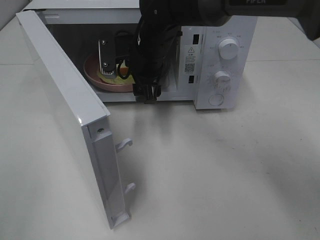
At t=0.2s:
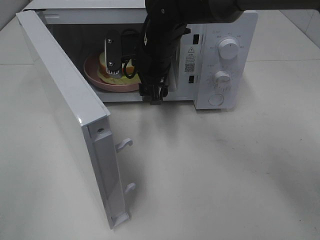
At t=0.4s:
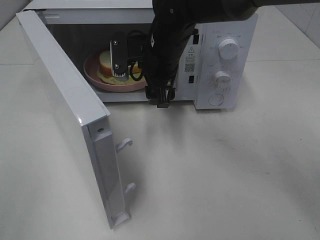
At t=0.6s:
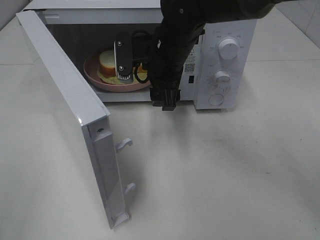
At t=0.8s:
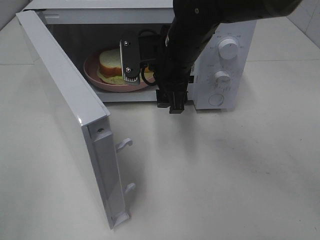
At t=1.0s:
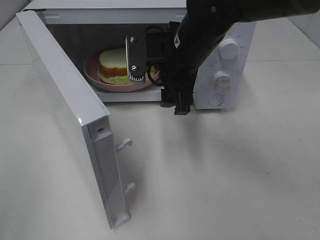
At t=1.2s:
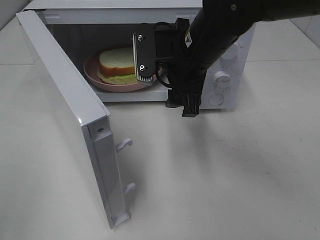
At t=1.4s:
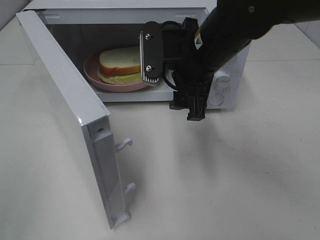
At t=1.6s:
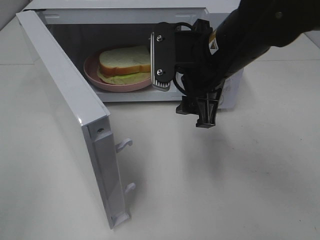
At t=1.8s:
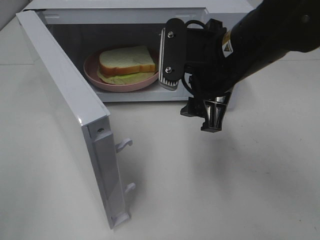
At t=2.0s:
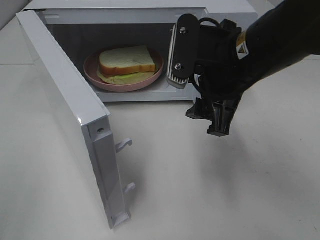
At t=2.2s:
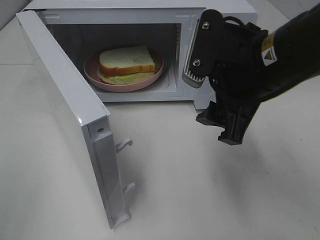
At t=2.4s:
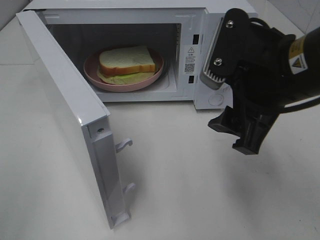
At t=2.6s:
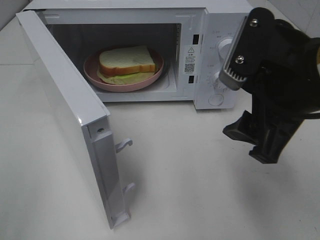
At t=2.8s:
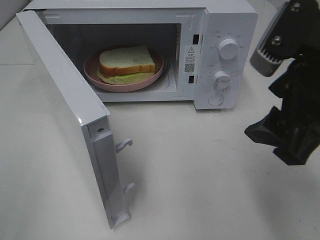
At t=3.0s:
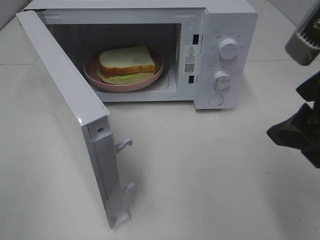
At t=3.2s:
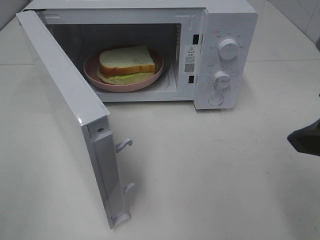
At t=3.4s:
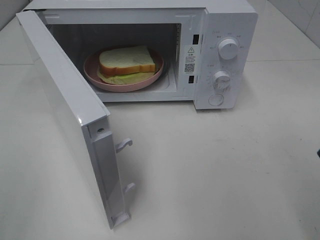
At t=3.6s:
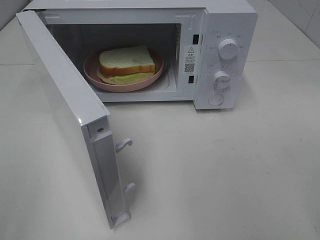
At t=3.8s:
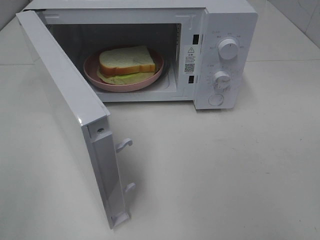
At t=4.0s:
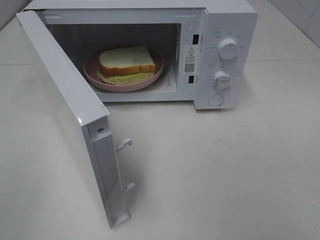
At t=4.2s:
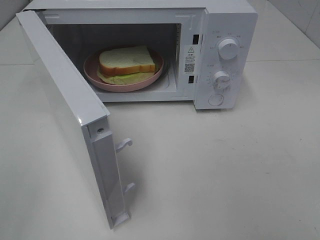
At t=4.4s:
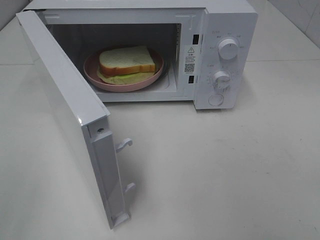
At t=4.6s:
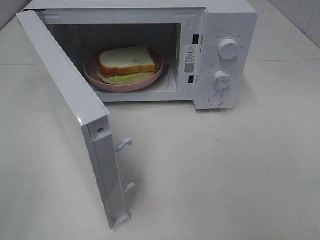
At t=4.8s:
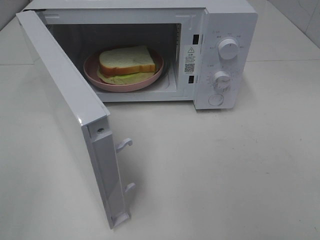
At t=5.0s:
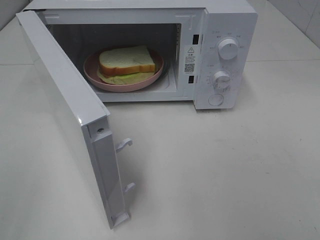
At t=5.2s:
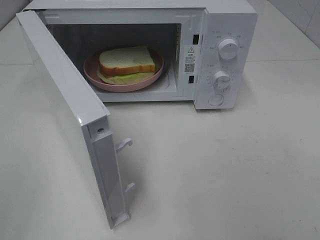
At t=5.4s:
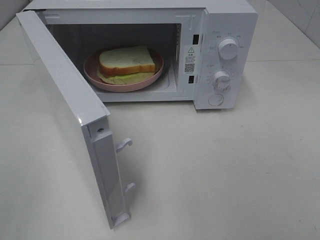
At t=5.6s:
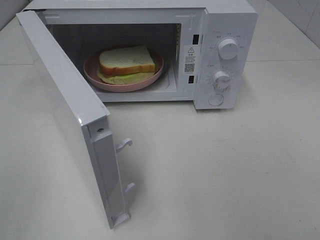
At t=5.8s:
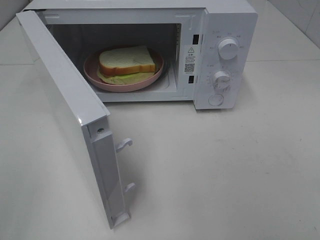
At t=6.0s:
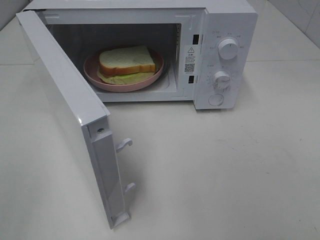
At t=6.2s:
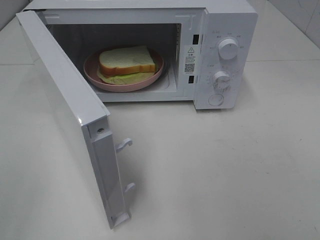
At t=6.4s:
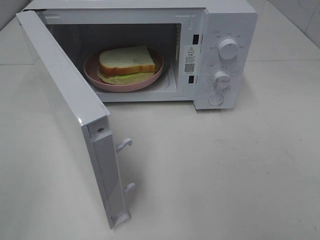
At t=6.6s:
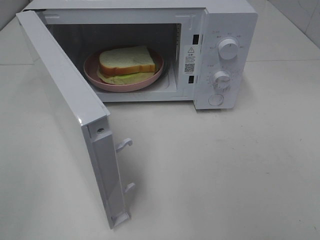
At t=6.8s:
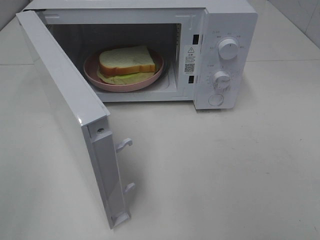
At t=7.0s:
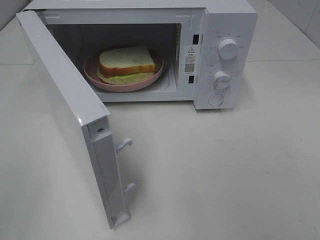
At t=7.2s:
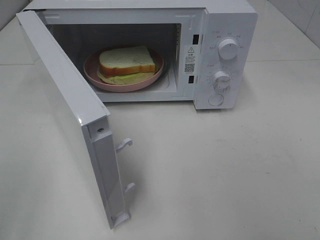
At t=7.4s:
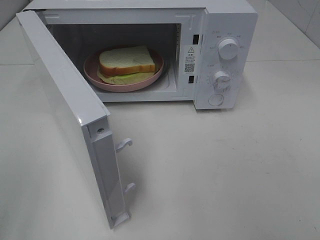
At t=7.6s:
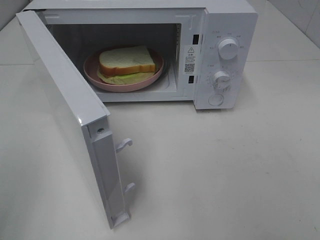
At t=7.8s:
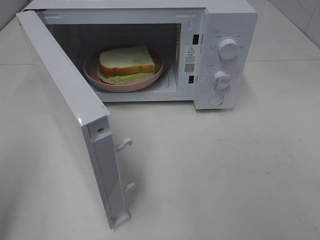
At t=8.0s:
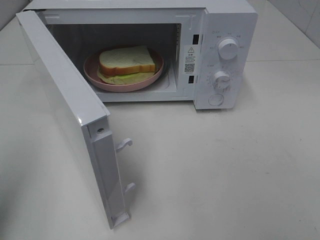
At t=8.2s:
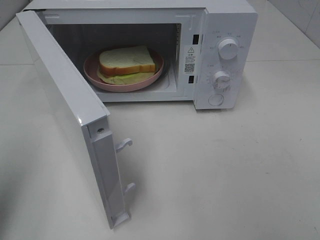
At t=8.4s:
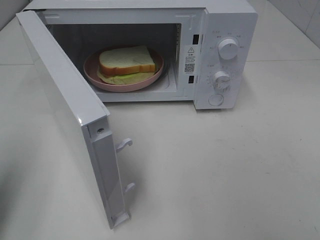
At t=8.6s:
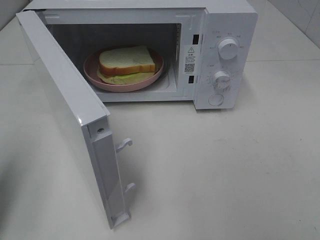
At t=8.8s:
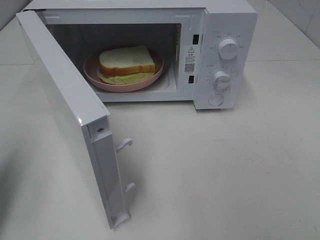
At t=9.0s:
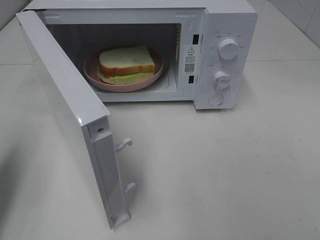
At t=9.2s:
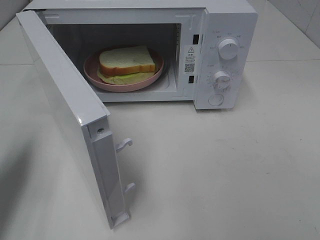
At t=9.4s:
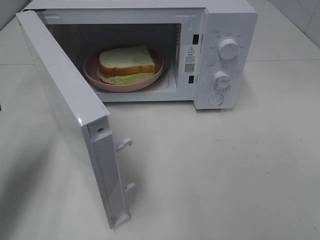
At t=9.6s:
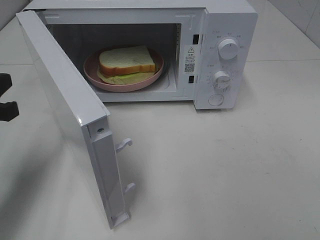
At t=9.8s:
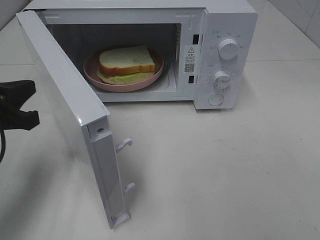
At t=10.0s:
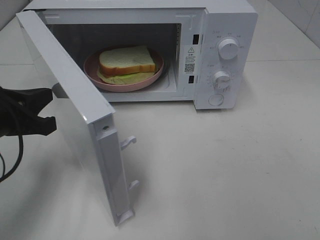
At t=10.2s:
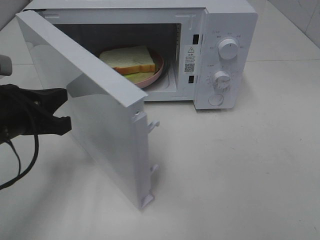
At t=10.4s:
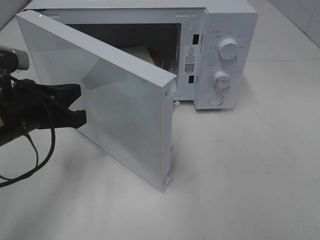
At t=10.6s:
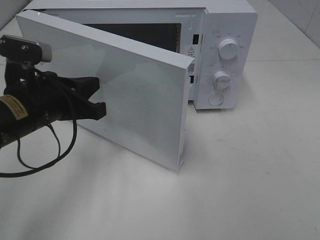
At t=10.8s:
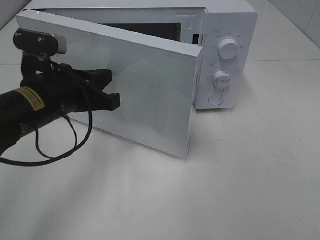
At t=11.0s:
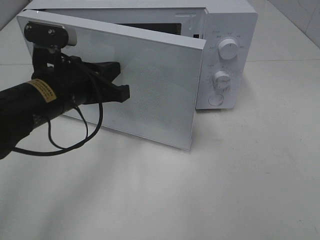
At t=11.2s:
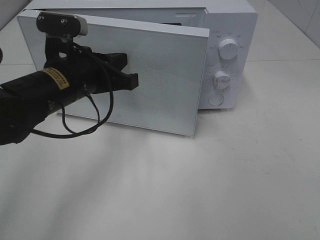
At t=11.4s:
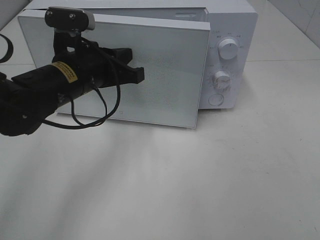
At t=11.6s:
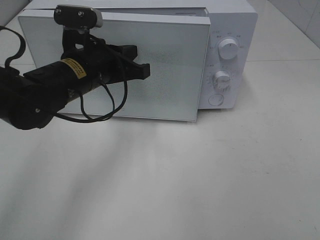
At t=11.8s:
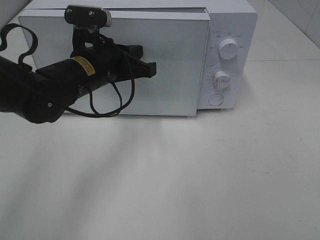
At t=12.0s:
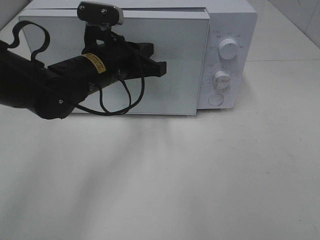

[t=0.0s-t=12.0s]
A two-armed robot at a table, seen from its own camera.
Task of the whole recording: Heat Sandwich.
t=0.0s to t=1.6s: The right gripper is displaced backward, to the right and upward by roughly 15 cm.
t=1.6s to t=3.0s: The right gripper travels backward, to the right and upward by approximately 20 cm.
t=3.0s to t=4.4s: The right gripper goes about 15 cm backward and to the right.
t=7.6s to t=9.0s: The left gripper shifts roughly 15 cm forward and downward, and closes its fingers.
t=9.0s to t=10.4s: The left gripper is displaced to the right, downward and forward by some 15 cm.
t=10.4s to t=12.0s: The left gripper travels to the right and forward by some 15 cm.

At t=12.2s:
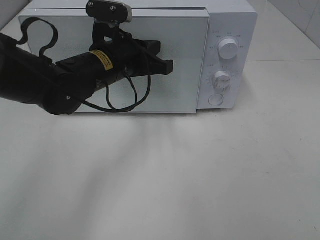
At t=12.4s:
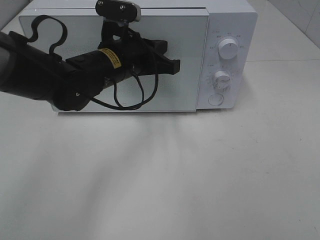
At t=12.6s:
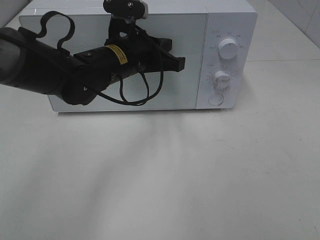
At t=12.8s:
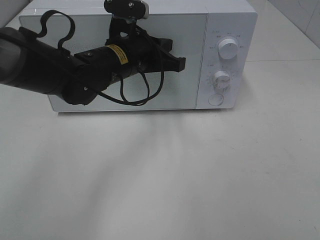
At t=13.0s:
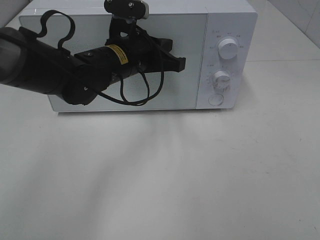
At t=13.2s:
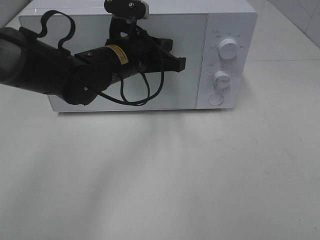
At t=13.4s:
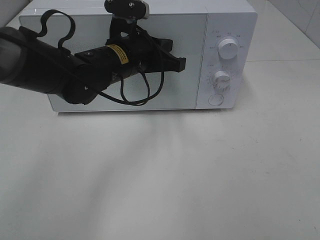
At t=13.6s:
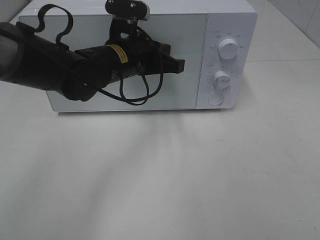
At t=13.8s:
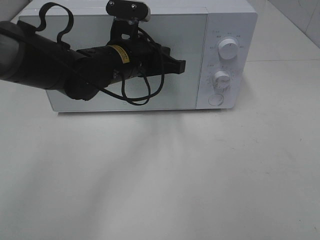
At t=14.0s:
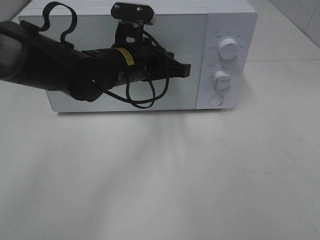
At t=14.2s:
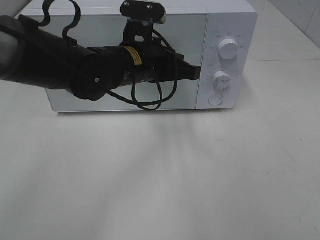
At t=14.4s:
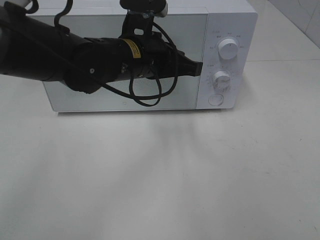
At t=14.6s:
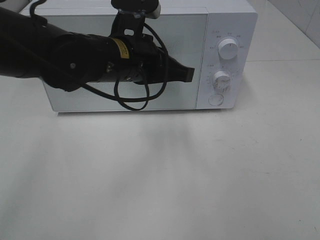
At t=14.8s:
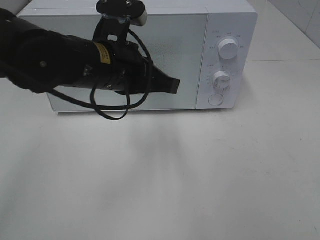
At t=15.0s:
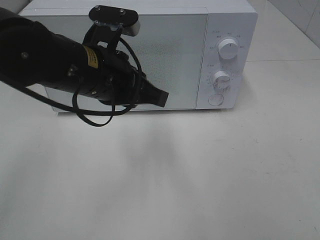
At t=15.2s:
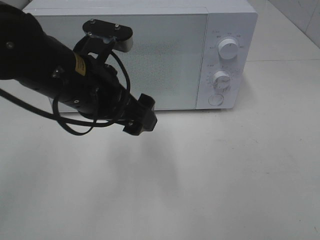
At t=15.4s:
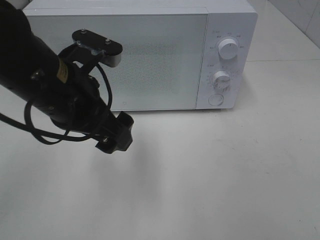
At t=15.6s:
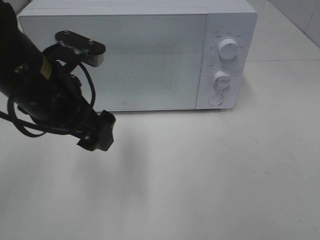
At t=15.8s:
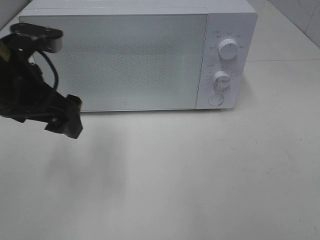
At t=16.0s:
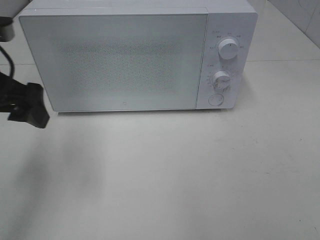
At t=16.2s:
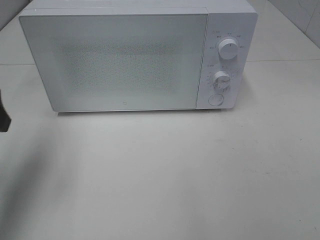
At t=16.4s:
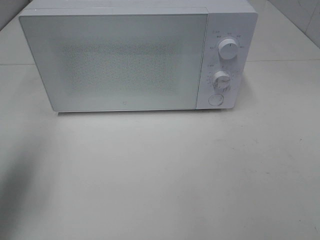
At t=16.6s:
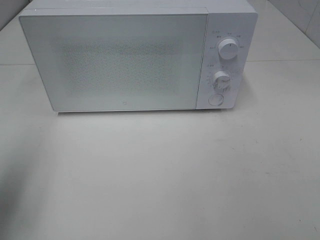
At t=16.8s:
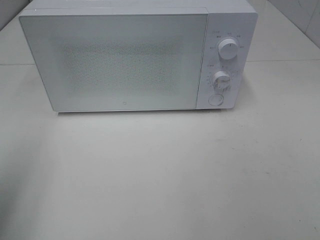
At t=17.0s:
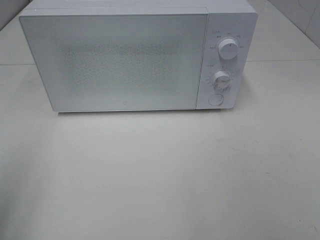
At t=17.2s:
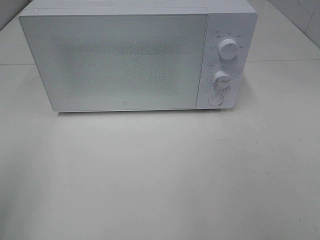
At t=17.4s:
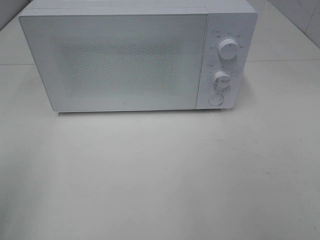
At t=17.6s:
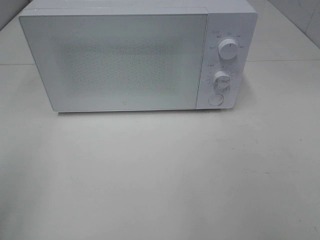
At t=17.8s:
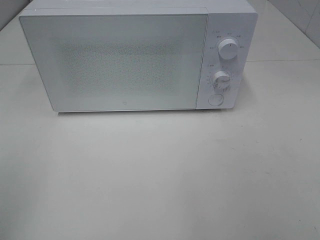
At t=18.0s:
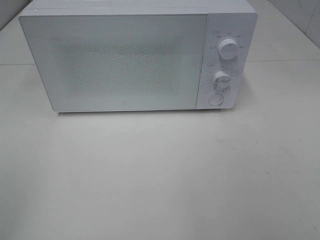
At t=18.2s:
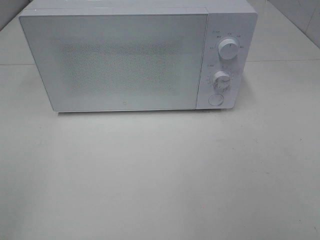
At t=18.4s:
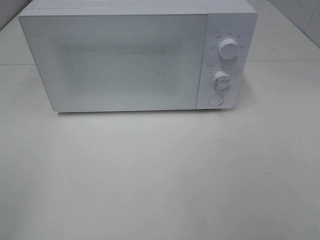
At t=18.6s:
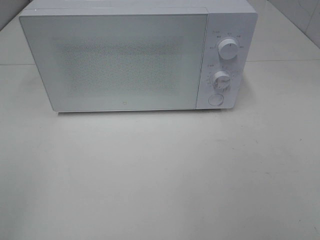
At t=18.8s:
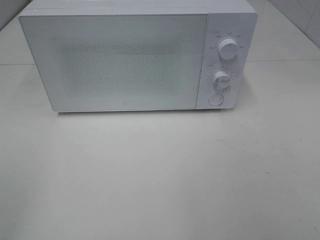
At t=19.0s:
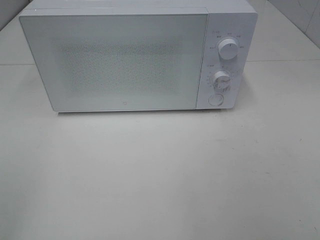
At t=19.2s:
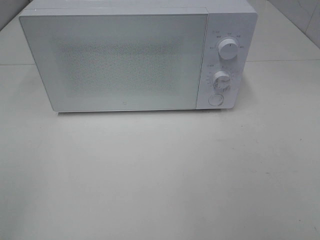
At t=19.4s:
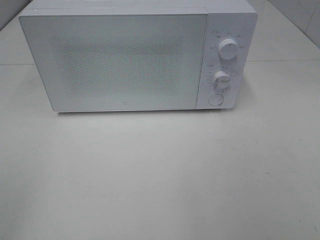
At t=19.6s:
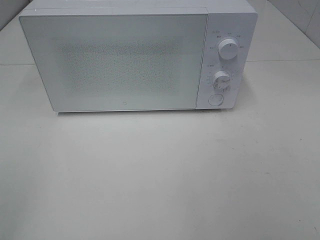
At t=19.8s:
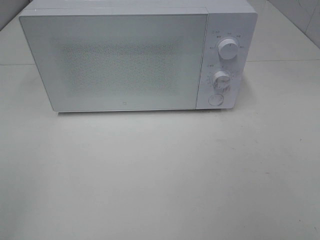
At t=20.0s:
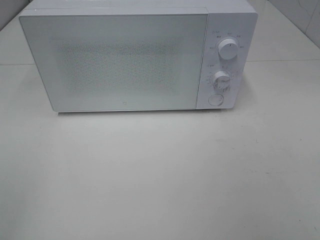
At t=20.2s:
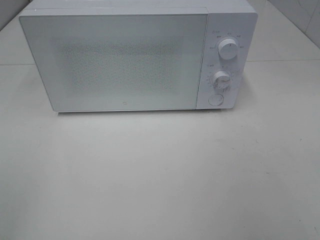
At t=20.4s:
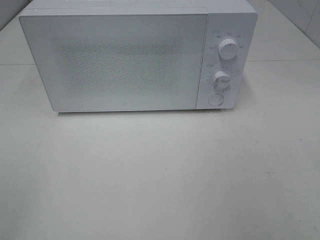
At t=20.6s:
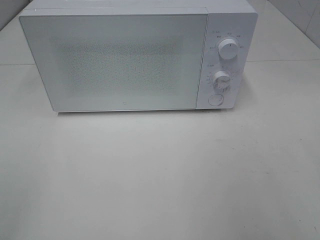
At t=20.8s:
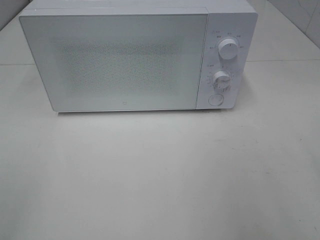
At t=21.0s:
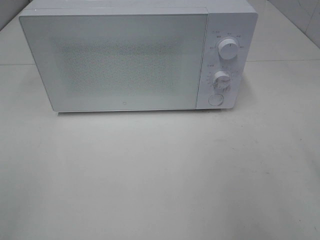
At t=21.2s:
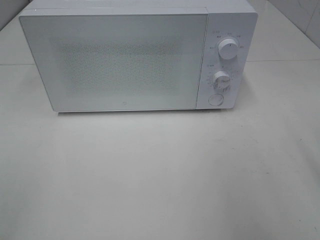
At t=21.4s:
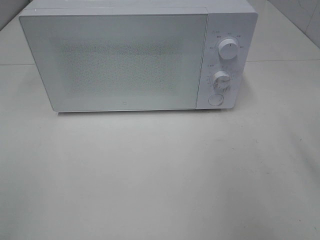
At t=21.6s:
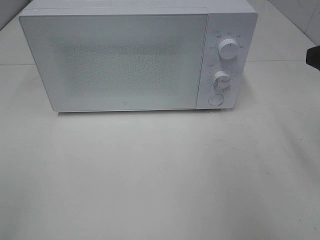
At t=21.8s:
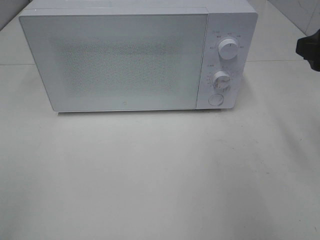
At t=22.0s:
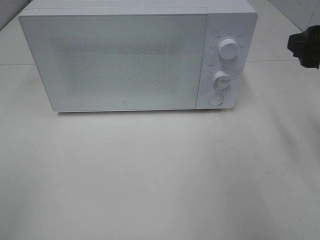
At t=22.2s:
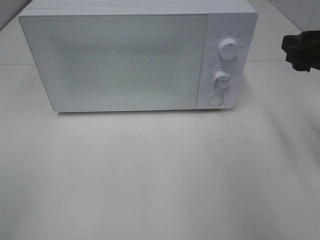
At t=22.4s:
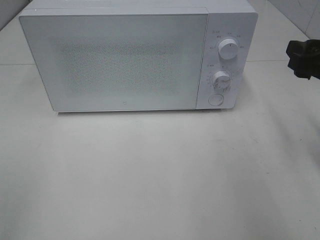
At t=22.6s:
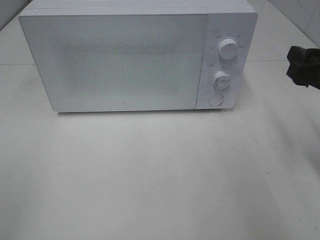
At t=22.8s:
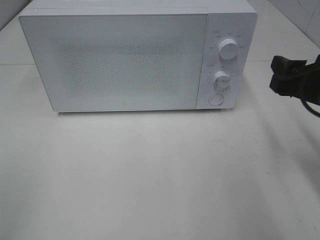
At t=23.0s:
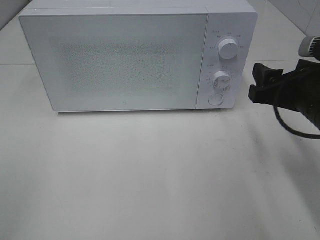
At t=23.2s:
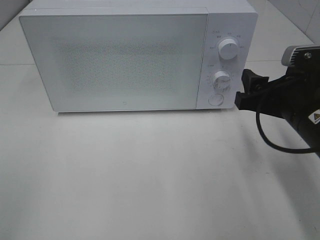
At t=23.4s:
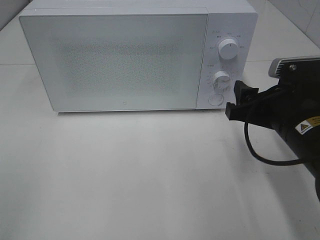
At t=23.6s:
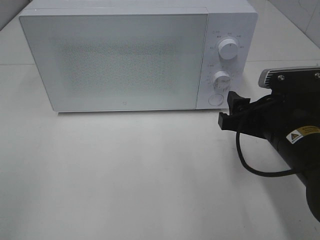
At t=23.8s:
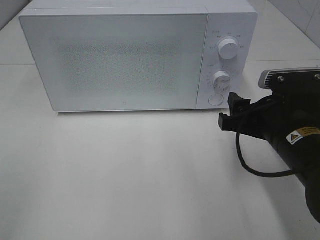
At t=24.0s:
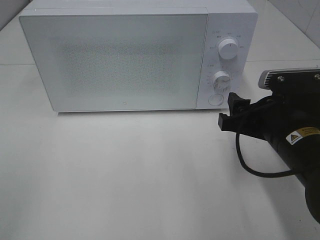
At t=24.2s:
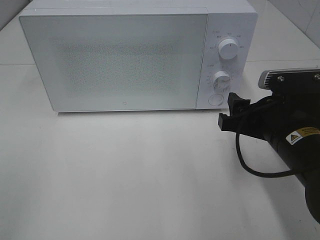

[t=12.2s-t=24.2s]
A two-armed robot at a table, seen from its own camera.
Task of the whole recording: Heat Sandwich.
Step, t=12.2s to t=14.4s: Left hand: close the microwave door.
t=12.2s to t=13.8s: There are only small adjustments of the grippers.
t=13.8s to t=15.2s: The left gripper goes roughly 10 cm backward, and opens.
t=15.2s to t=16.6s: The left gripper is displaced to the left and backward by roughly 25 cm.
t=16.6s to t=18.2s: The left gripper is displaced backward by about 15 cm.
t=18.2s to t=19.8s: The two grippers keep their place.
t=21.2s to t=22.6s: The right gripper heads downward and forward, covering some 10 cm.
t=22.6s to t=24.2s: The right gripper heads to the left and downward, covering approximately 10 cm.
